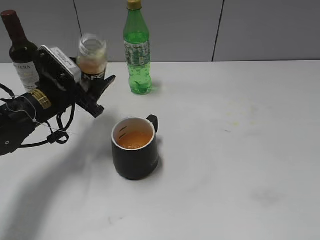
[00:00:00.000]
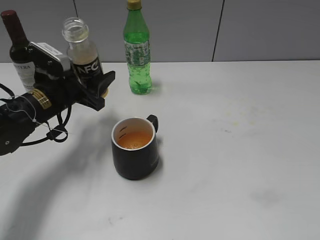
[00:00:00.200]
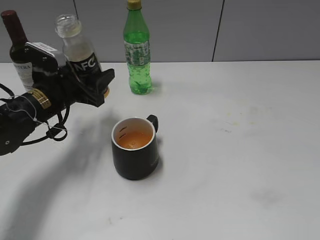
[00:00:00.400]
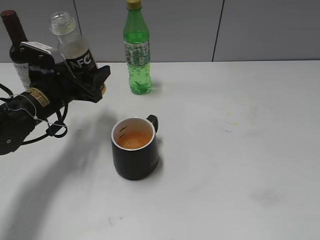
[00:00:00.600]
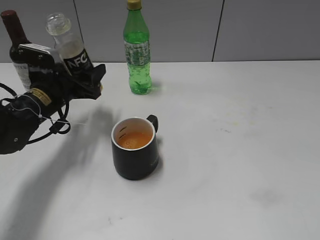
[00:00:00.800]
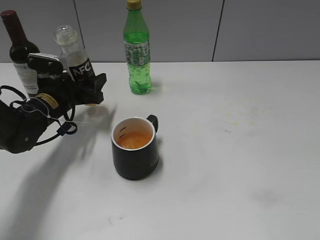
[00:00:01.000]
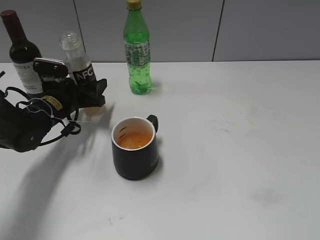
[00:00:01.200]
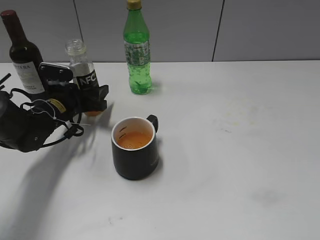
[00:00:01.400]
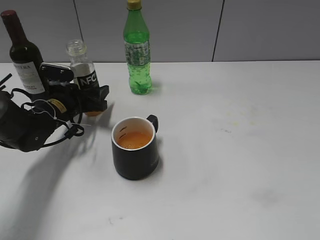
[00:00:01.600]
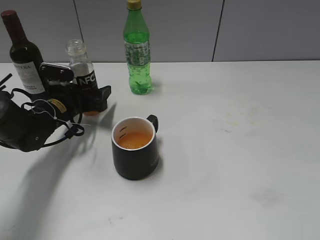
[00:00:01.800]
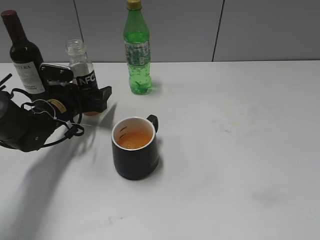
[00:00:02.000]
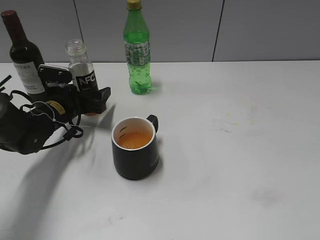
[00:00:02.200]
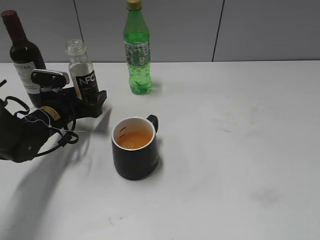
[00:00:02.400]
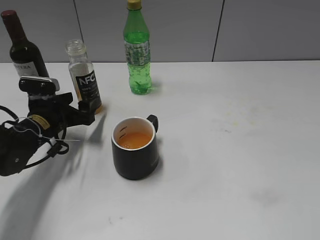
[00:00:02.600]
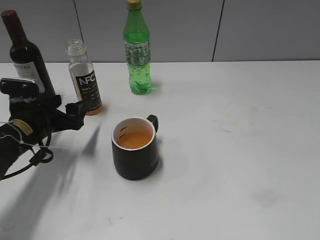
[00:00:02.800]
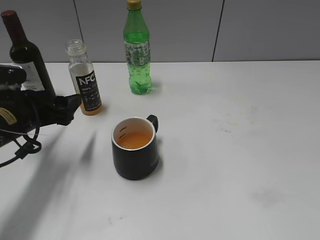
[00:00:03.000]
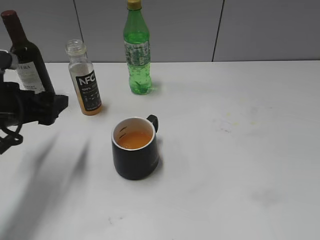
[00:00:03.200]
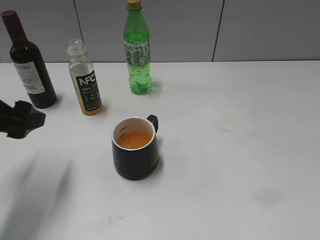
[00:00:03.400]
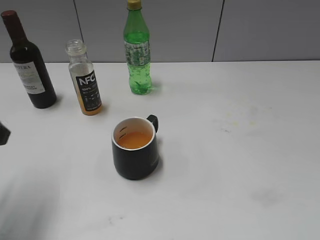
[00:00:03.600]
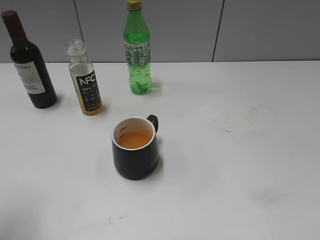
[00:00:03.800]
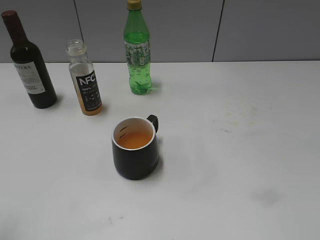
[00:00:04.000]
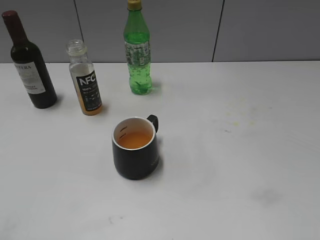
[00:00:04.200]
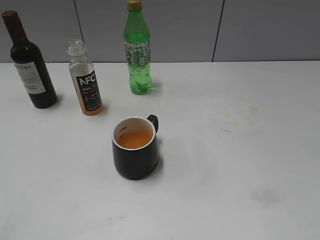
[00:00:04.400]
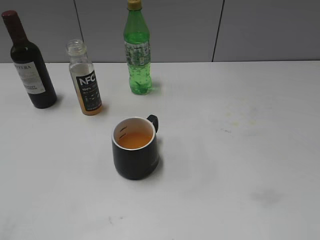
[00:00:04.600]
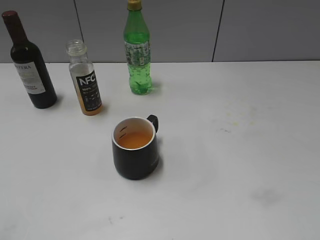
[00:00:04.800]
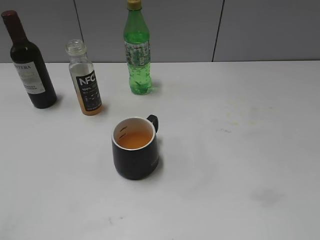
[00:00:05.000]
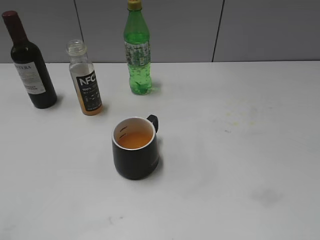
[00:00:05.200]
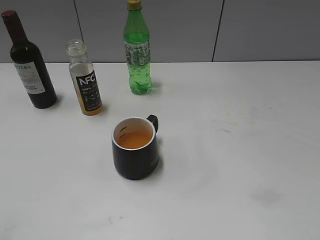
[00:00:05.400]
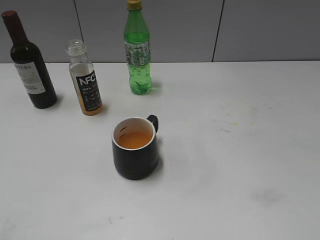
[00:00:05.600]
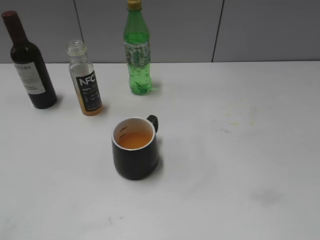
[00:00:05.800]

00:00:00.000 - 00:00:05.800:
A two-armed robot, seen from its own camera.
Step, 00:00:00.000 - 00:00:02.200: Place the orange juice bottle on the table with left gripper.
00:00:00.000 - 00:00:01.400: The left gripper goes about 5 cm downward.
00:00:01.400 - 00:00:02.800: The left gripper travels backward by some 10 cm, and opens.
00:00:02.800 - 00:00:04.400: The left gripper shifts about 35 cm backward and upward.
